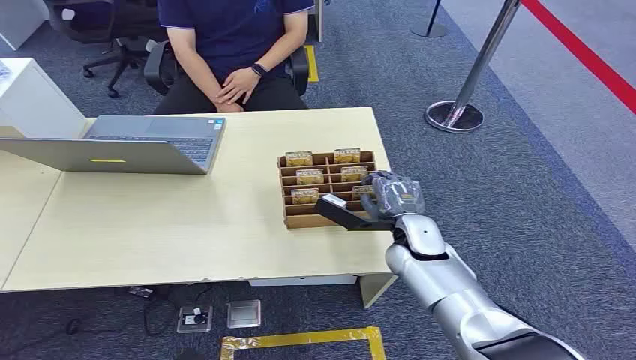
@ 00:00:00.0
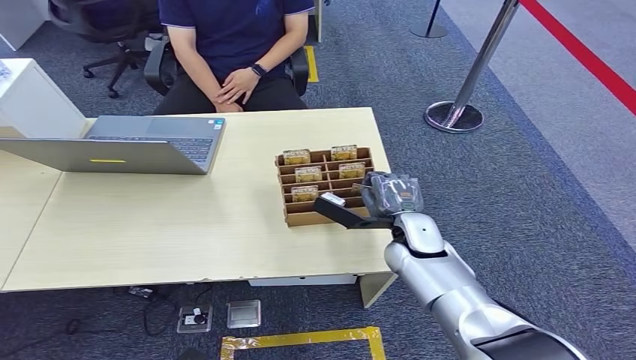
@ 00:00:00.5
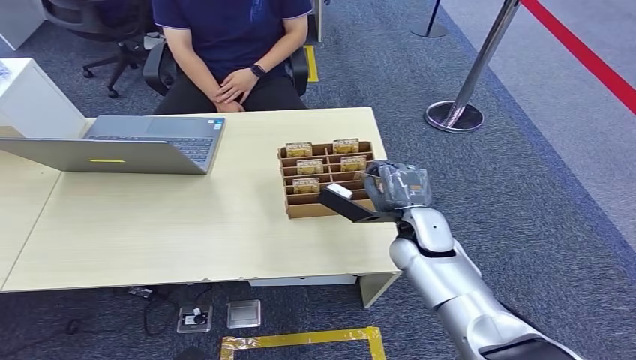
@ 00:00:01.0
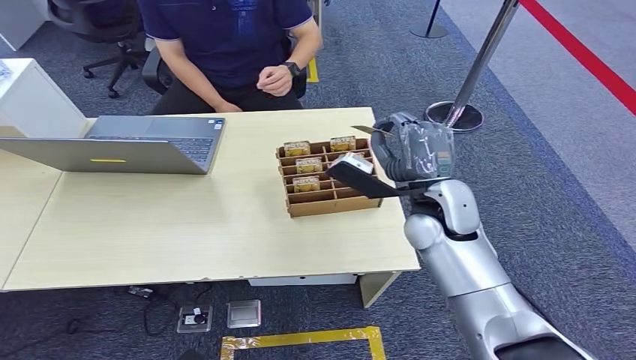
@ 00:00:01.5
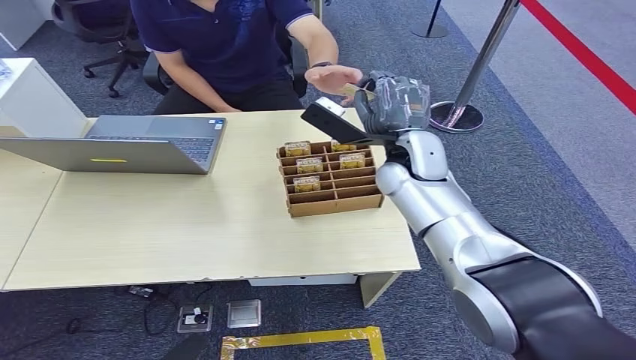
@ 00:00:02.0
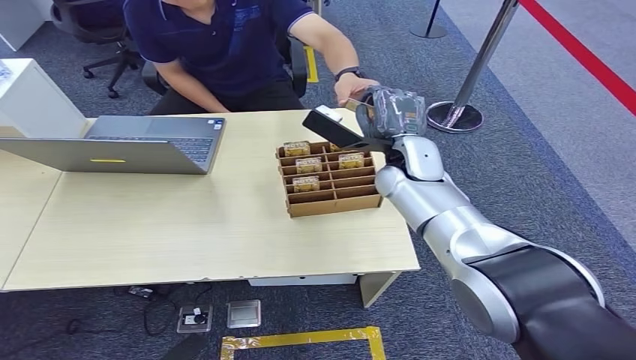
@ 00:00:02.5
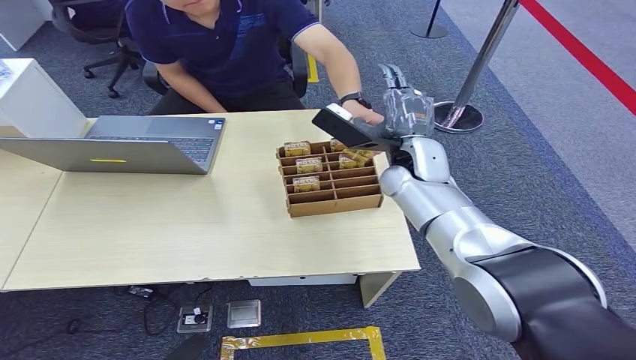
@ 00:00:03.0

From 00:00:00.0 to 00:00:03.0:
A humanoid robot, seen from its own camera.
Step, from 00:00:00.0 to 00:00:01.5: Pick up the key card from the card box.
Step, from 00:00:02.0 to 00:00:03.0: Hand the key card to the target.
From 00:00:01.5 to 00:00:03.0: The right hand goes about 10 cm forward.

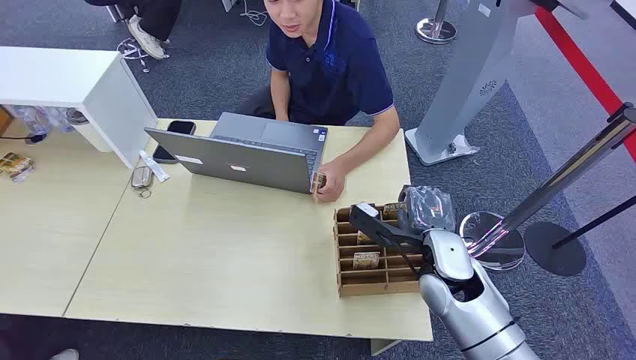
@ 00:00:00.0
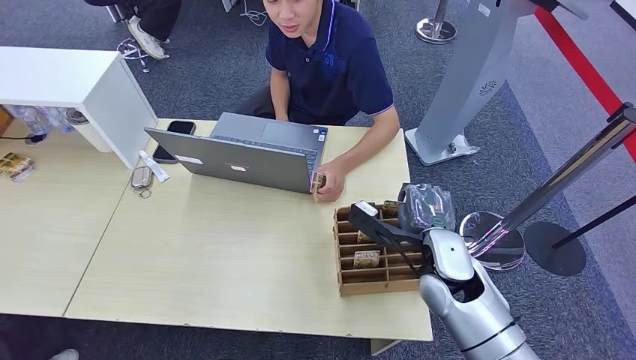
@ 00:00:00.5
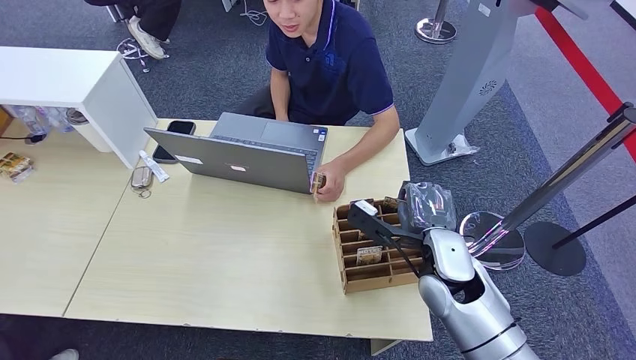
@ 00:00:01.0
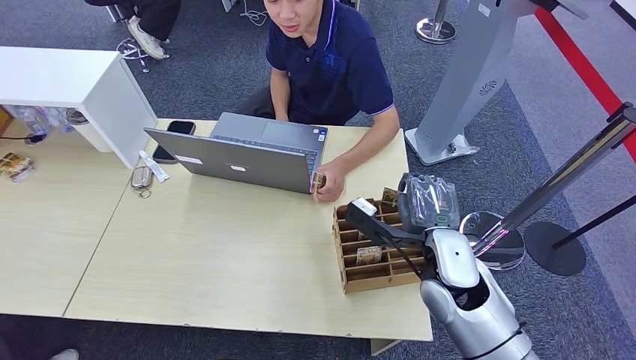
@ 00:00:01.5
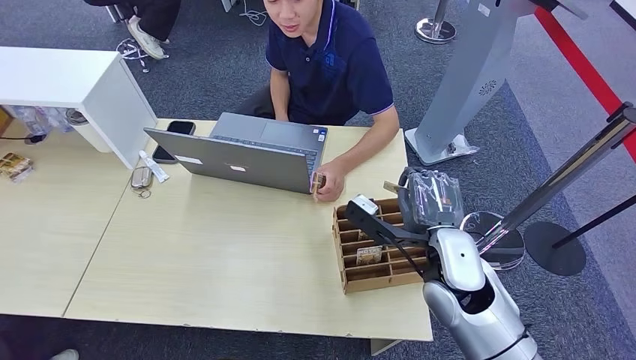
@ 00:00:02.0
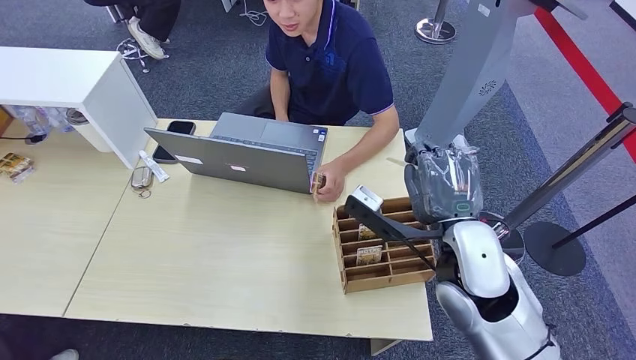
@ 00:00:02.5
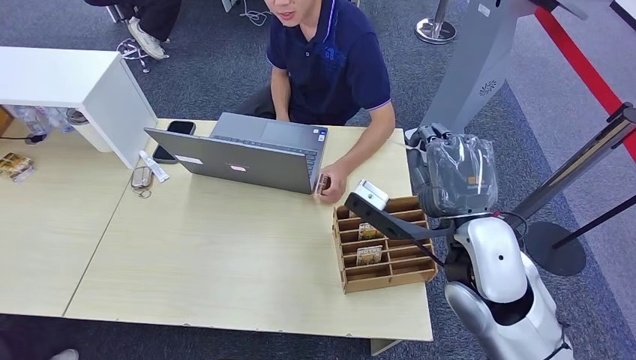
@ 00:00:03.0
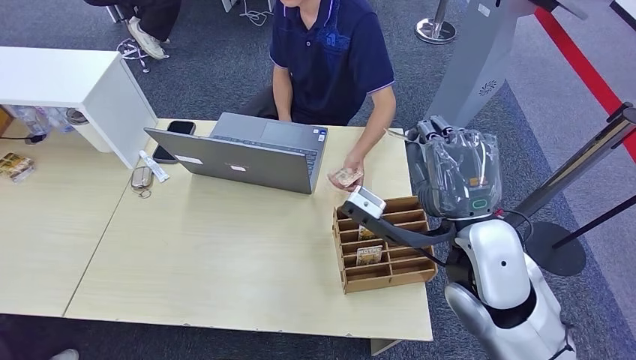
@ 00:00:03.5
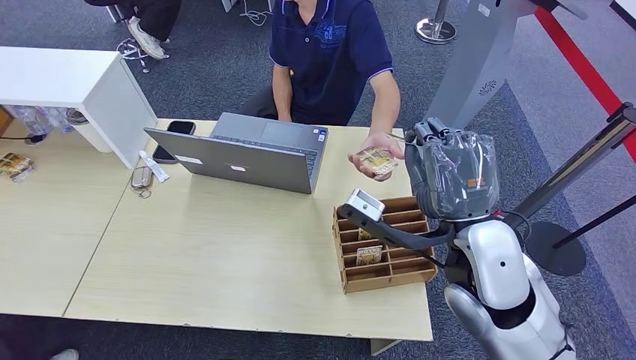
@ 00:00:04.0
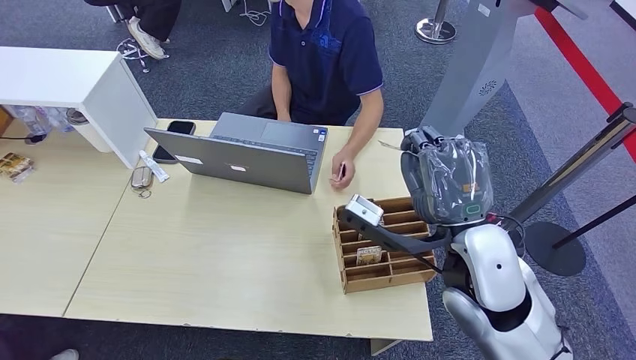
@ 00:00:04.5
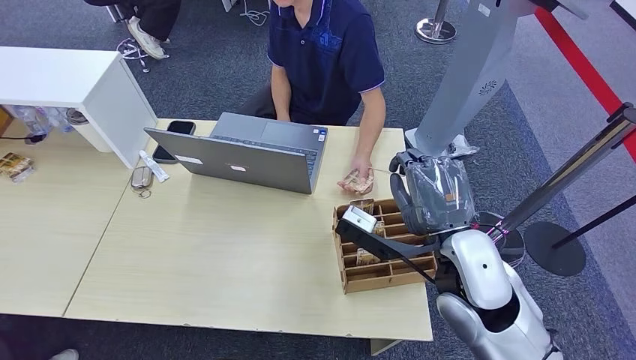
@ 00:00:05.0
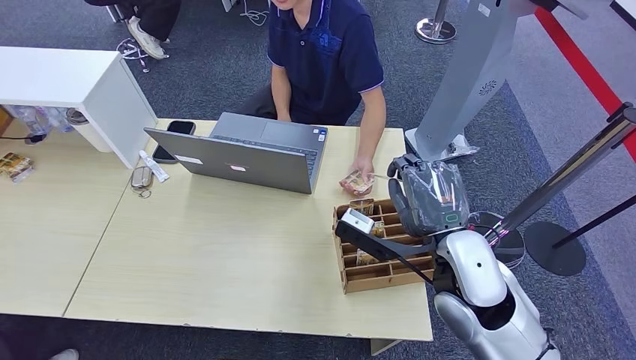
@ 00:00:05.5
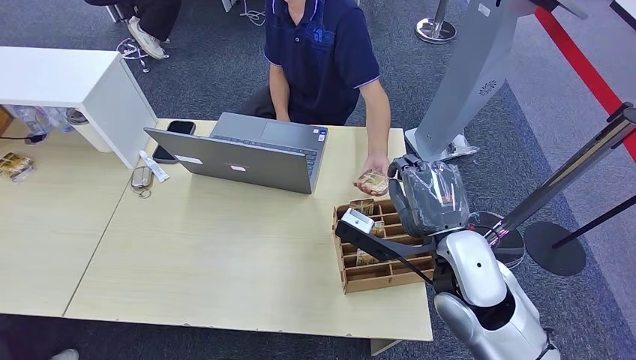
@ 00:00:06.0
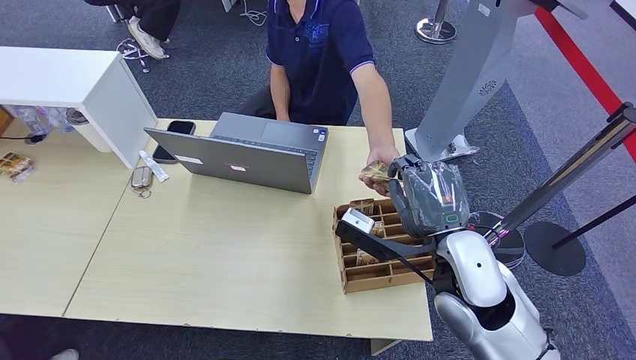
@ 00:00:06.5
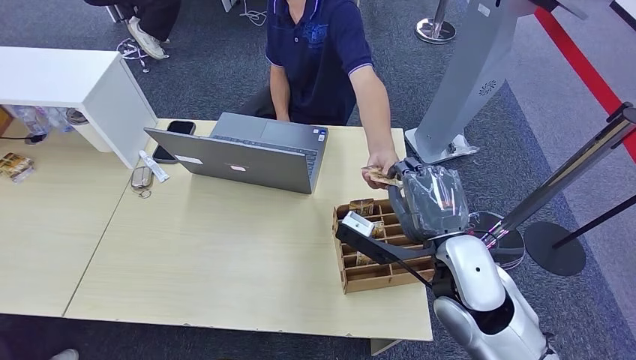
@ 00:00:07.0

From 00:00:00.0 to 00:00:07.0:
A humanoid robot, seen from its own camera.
Step, from 00:00:00.0 to 00:00:01.5: Pick up the key card from the card box.
From 00:00:02.0 to 00:00:03.5: The right hand goes some 10 cm upward.
From 00:00:03.5 to 00:00:07.0: The hands stay close to where they were, moving slightly.
